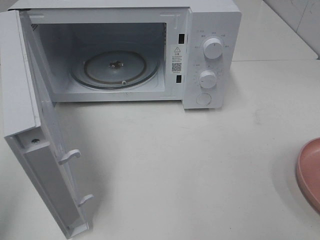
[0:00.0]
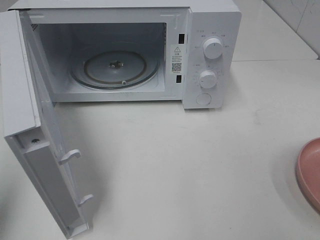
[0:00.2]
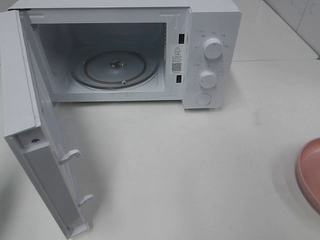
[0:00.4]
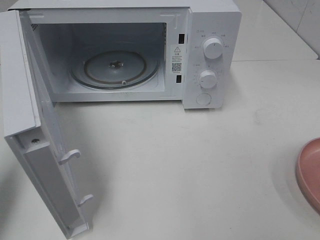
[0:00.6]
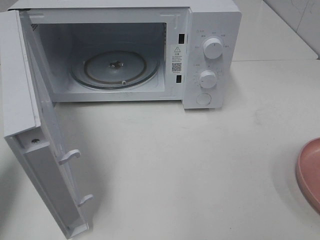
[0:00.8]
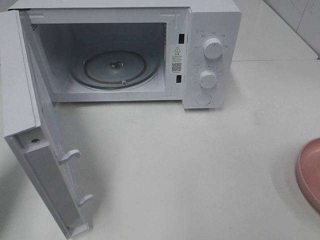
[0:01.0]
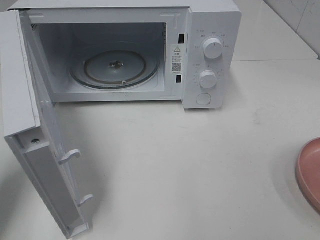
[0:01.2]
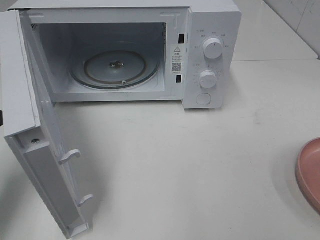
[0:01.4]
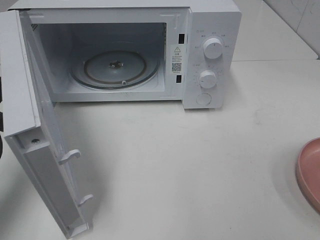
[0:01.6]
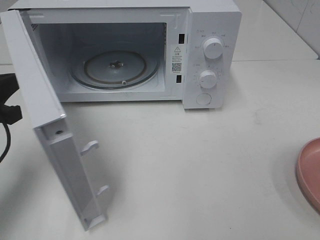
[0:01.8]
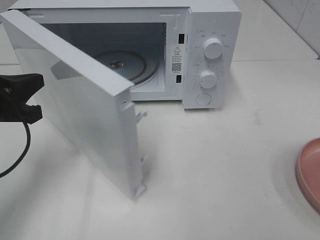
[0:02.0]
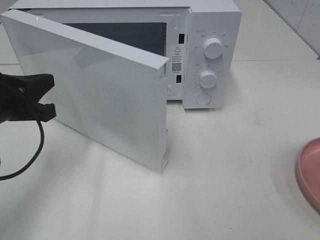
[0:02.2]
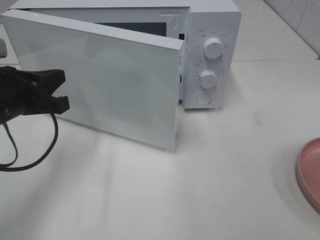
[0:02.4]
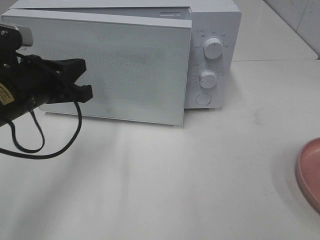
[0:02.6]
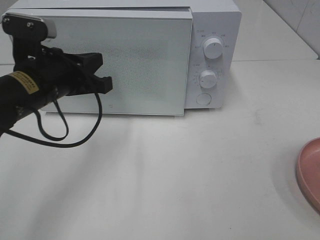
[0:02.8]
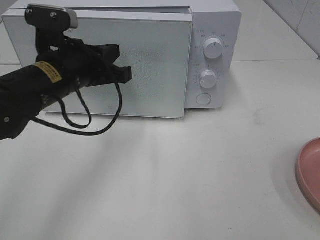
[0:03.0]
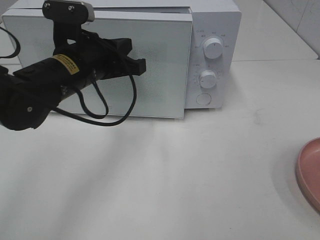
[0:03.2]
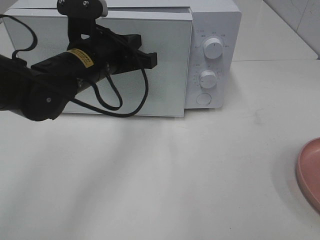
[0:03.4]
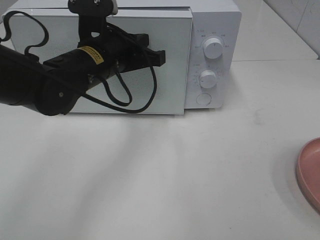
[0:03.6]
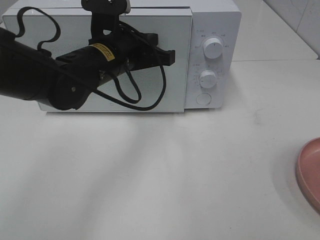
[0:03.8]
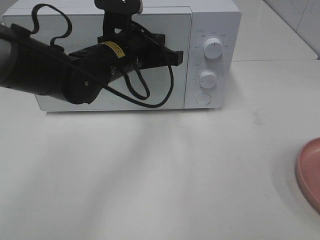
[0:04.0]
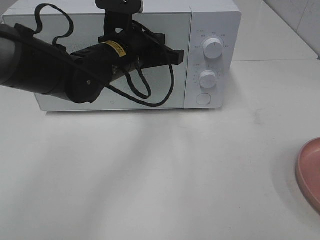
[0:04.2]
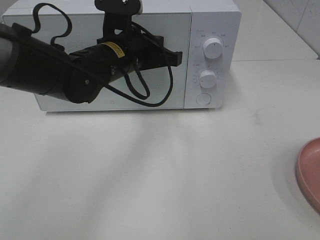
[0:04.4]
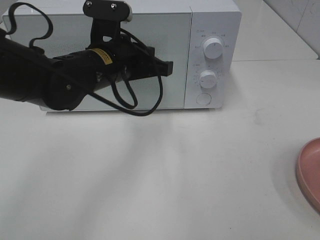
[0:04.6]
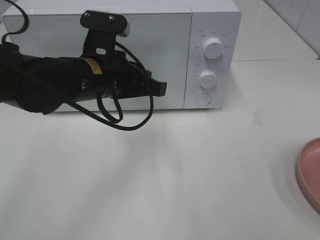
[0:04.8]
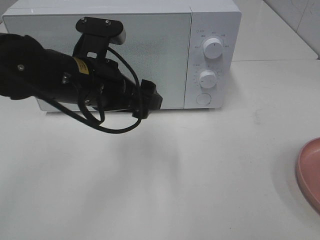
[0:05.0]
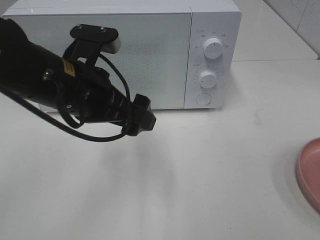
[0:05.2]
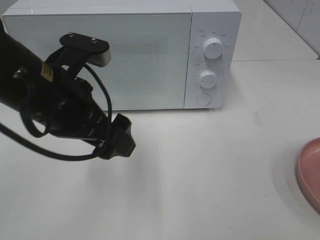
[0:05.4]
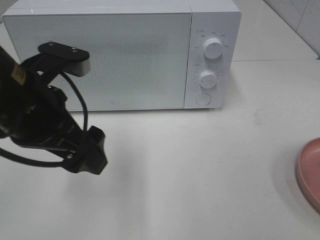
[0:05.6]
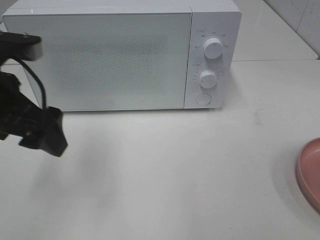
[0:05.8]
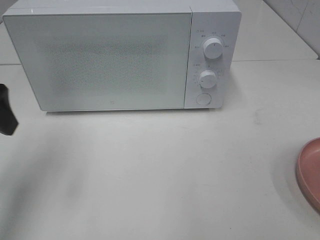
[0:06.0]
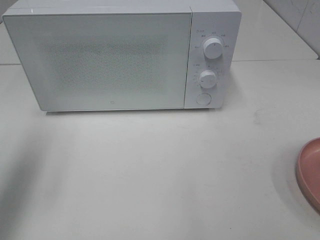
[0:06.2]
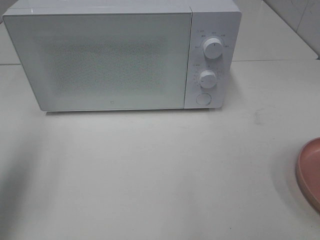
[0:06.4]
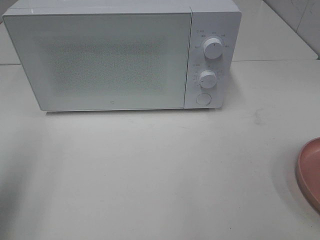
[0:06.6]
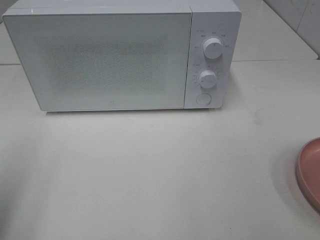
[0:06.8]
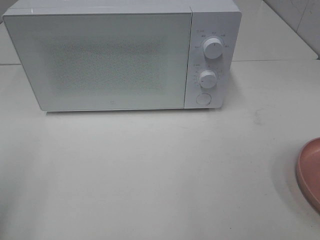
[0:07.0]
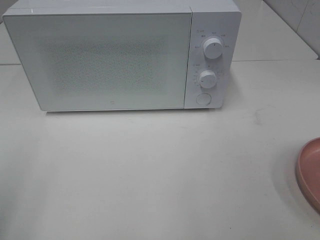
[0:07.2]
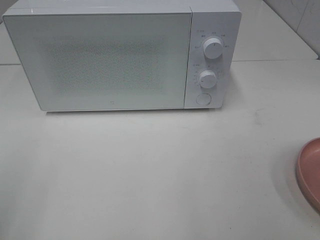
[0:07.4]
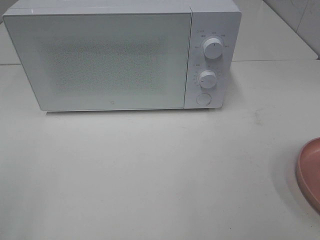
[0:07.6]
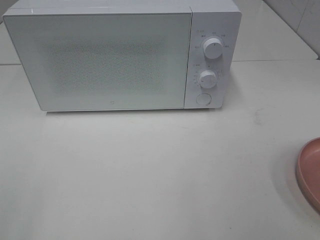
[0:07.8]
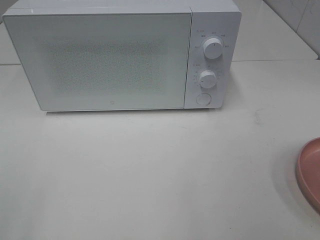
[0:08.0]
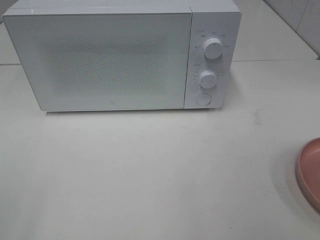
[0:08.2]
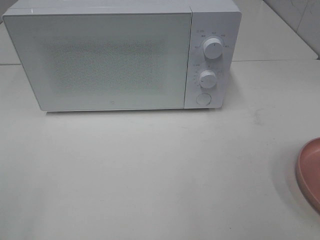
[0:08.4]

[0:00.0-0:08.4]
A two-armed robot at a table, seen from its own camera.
Task of the whole recording: Heat the burger.
Step, 0:00.0 to 0:04.4: Left hand: close the microwave door.
0:00.0 to 0:01.4: The left gripper travels forward and downward by some 15 cm.
0:01.4 to 0:02.8: The left gripper travels to the right and forward by some 15 cm.
0:02.8 to 0:04.2: The left gripper heads to the right and forward, covering approximately 10 cm.
0:04.2 to 0:05.6: The left gripper travels backward and to the left by some 15 cm, and opens its fingers.
0:05.6 to 0:07.0: The left gripper travels to the left and backward by roughly 20 cm.

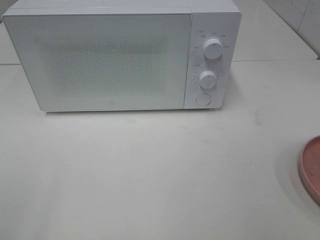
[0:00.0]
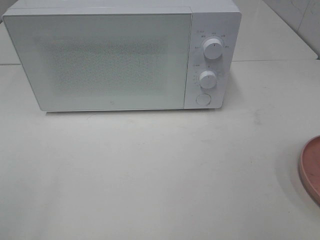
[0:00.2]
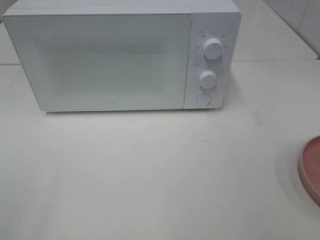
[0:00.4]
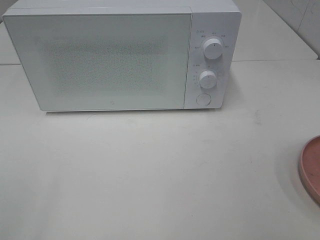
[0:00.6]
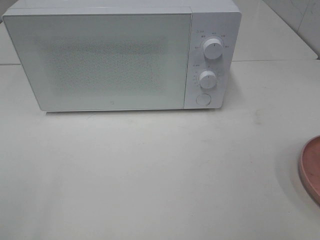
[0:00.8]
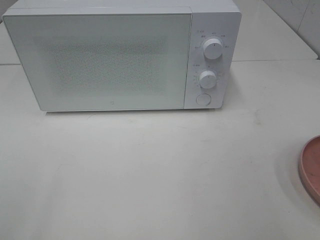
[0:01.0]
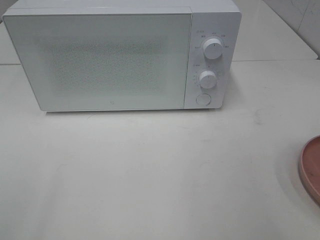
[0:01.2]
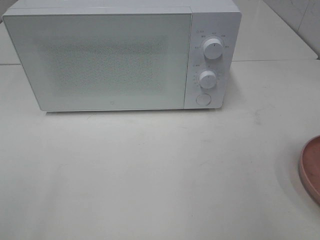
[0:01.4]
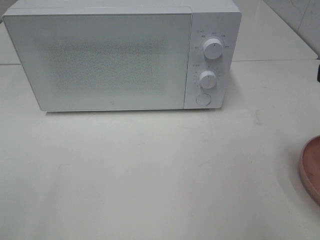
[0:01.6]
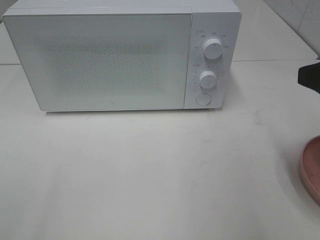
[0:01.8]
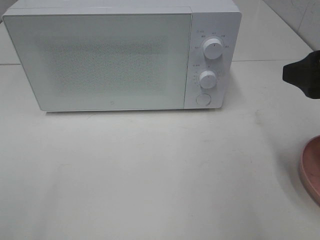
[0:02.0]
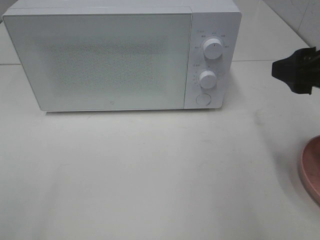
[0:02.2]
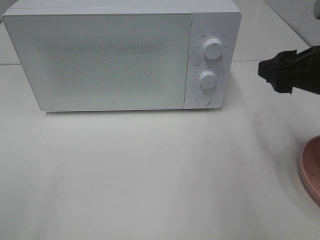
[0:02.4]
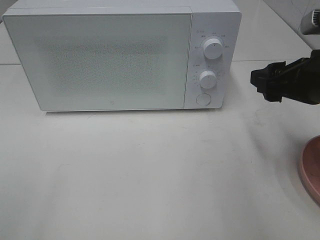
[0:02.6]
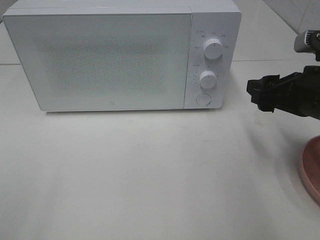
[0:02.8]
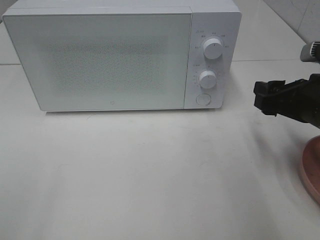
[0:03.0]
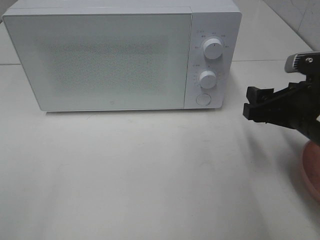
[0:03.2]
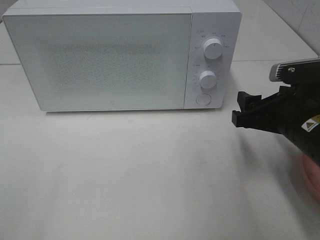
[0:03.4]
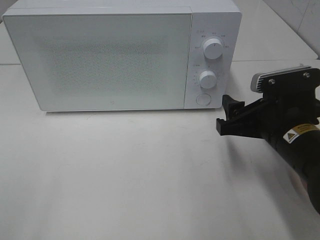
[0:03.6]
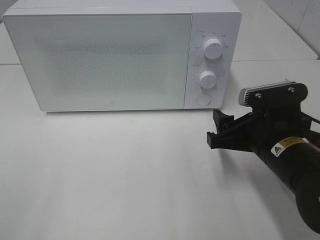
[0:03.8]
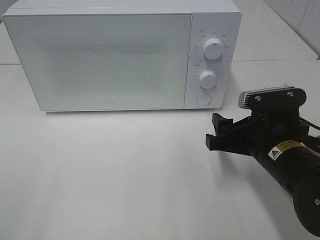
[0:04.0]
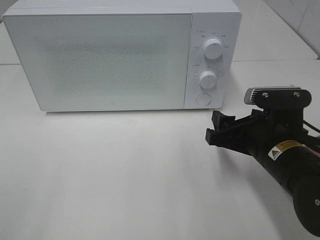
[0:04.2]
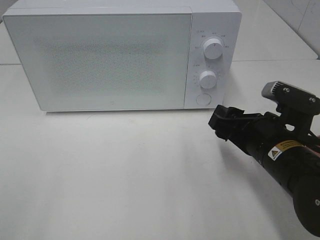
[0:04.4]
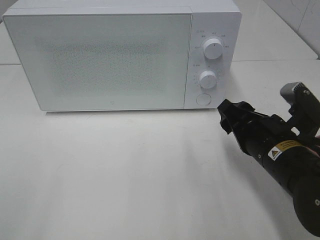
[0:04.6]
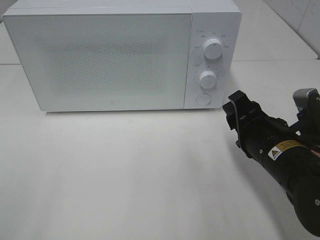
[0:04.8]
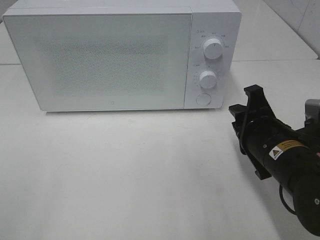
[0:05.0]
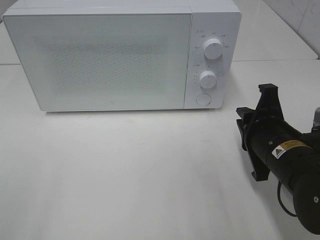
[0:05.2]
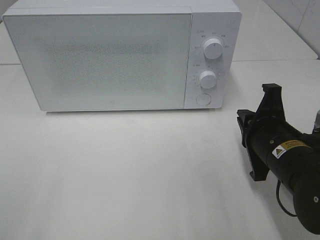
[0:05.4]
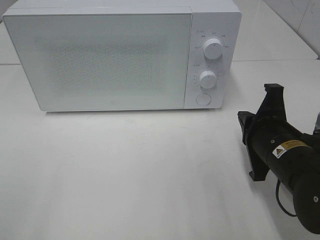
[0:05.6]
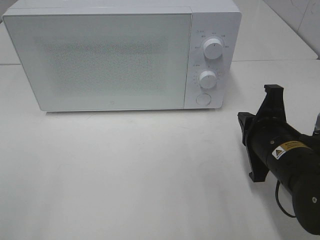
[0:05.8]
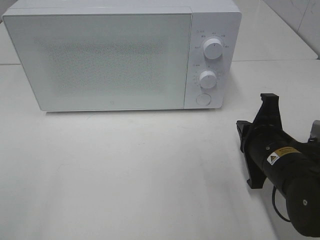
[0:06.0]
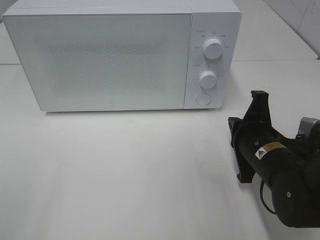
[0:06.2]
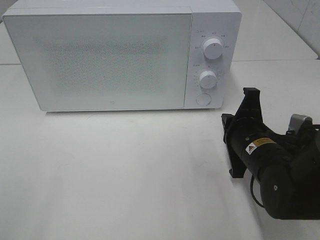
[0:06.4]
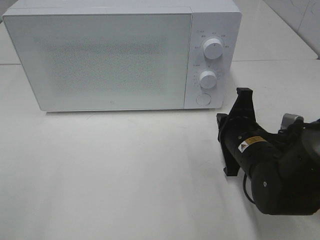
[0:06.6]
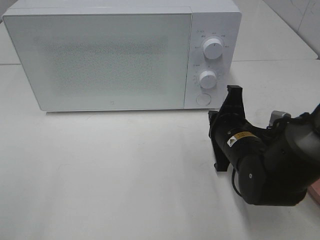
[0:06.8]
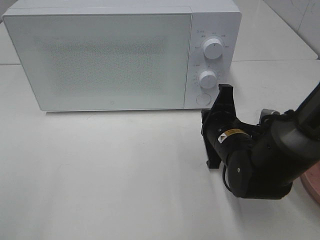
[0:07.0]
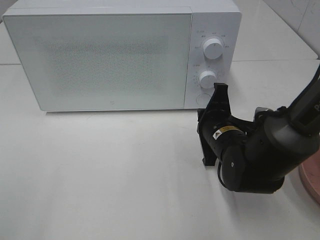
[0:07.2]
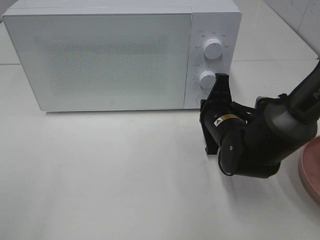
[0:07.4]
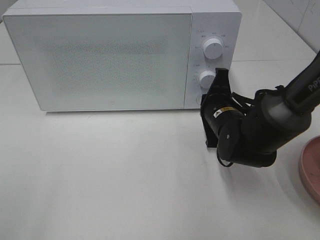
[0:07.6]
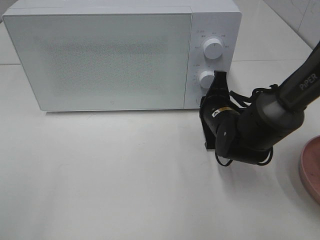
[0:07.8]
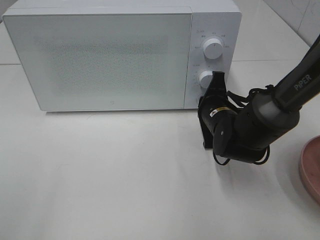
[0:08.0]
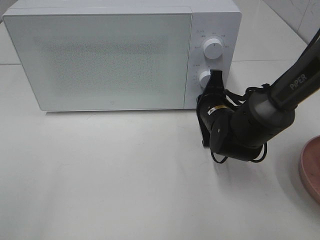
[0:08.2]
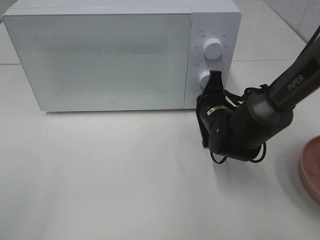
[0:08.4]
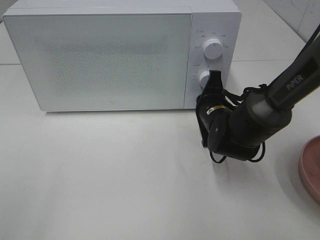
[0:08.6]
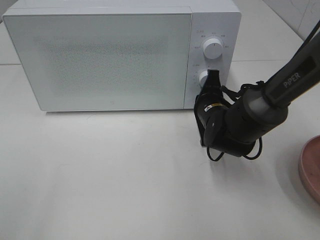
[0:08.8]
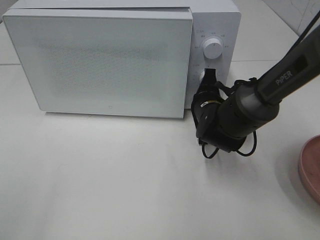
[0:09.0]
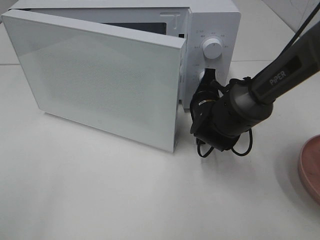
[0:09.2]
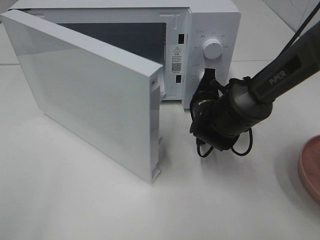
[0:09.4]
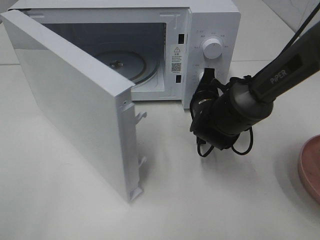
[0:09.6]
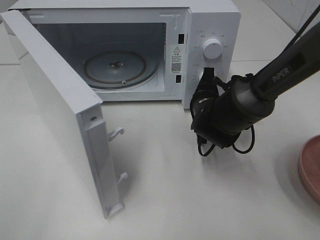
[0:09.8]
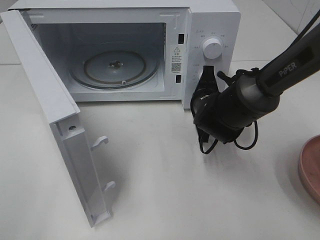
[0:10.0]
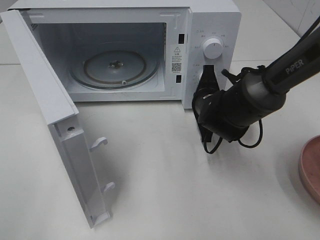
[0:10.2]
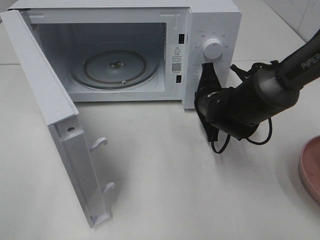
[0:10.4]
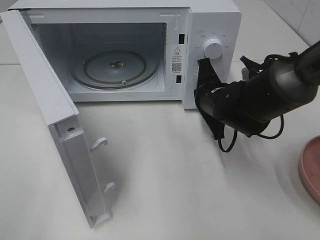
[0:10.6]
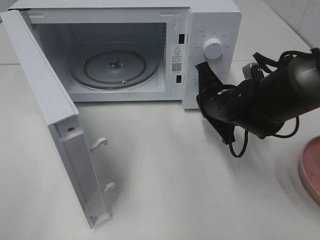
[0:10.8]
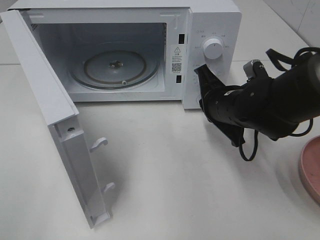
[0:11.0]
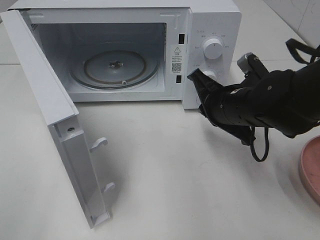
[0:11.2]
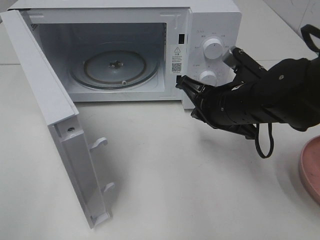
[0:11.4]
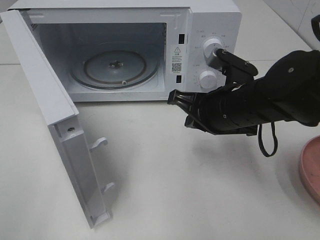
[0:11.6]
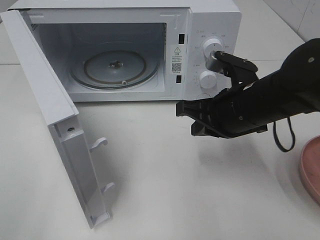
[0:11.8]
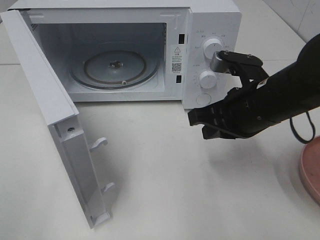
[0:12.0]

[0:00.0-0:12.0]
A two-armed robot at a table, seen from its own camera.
Task of the whole recording: Heat the burger.
Step, 0:00.0 to 0:10.8: Right hand: press the switch.
0:01.6 to 0:03.0: The right gripper heads downward and forward, covering some 15 cm.
0:03.0 to 0:04.4: The right gripper is displaced to the left and downward by about 10 cm.
0:04.4 to 0:06.0: The right gripper closes its fingers.
0:06.0 to 0:07.6: The right gripper moves forward, approximately 10 cm.
0:07.6 to 0:09.0: There are only small adjustments of the grippers.
0:10.4 to 0:12.0: The right gripper moves backward and upward, roughly 15 cm.

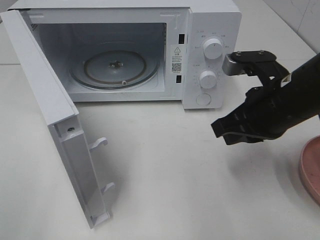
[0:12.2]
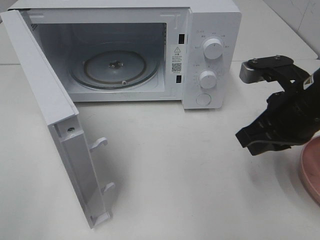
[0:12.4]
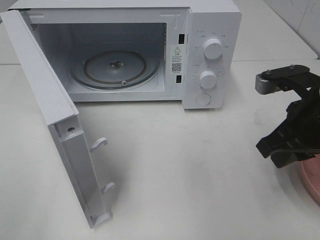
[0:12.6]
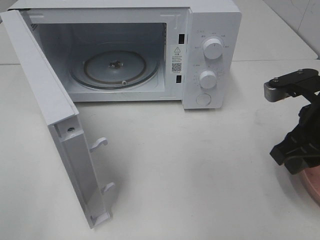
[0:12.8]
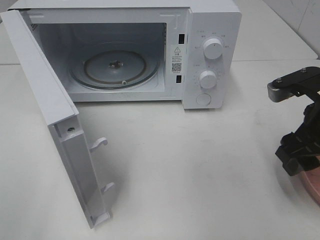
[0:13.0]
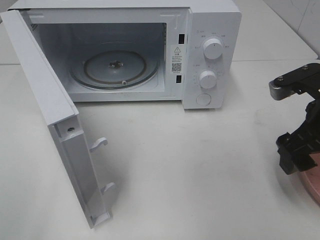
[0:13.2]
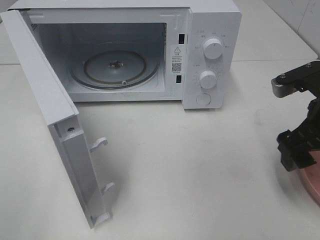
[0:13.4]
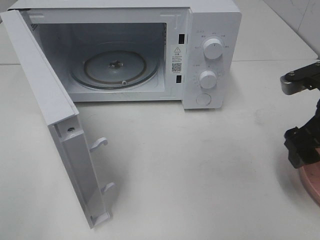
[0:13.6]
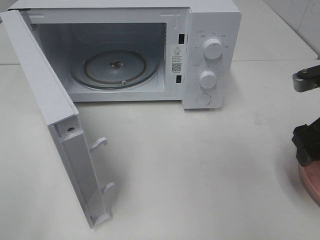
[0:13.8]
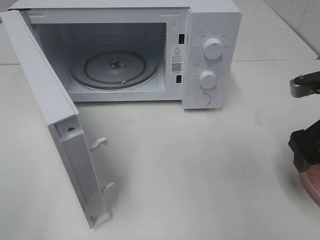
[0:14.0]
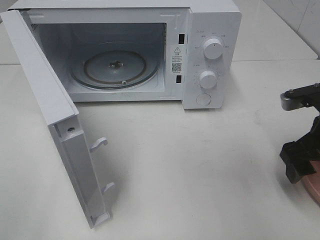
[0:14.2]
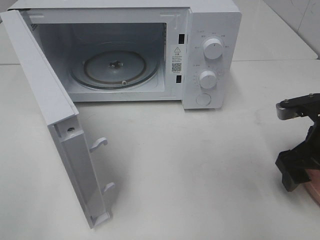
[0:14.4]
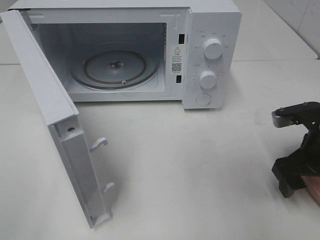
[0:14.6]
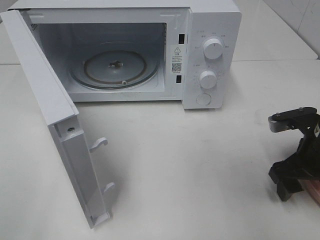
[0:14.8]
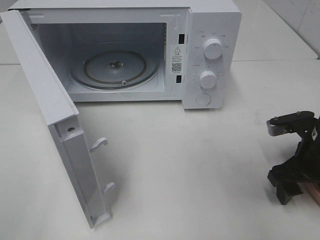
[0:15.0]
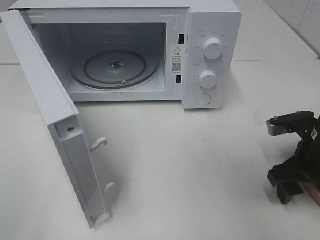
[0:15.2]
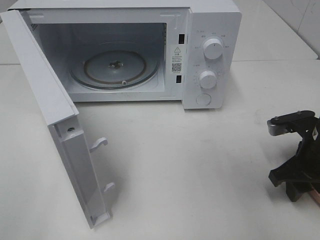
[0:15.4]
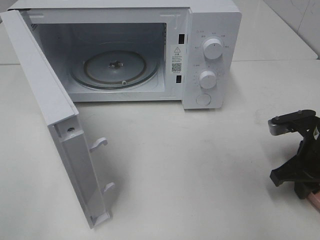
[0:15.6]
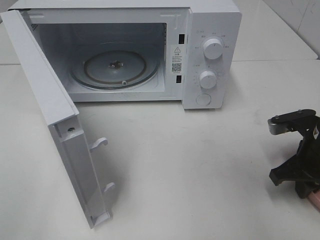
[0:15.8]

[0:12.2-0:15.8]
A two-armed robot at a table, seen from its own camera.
Task of the whole recording: Heat the burger.
0:12.2 to 0:14.0: The right gripper heads to the right, covering approximately 10 cm, and opens.
0:14.0 to 0:15.8: The right gripper moves downward, about 5 cm, and closes up.
